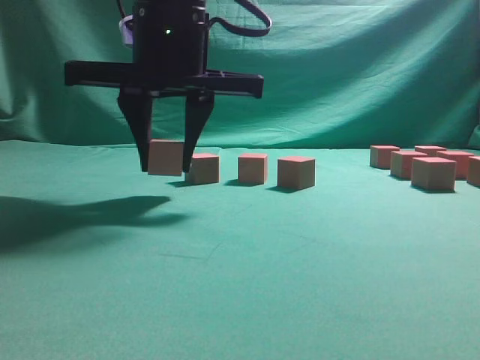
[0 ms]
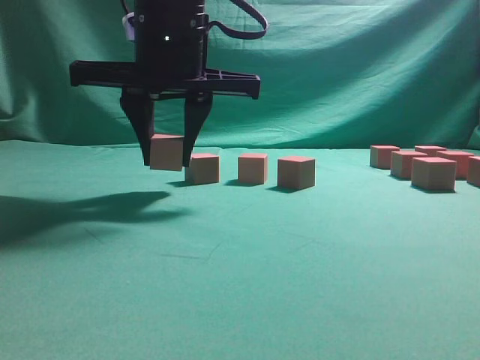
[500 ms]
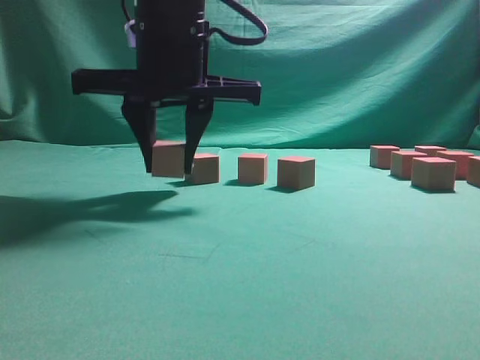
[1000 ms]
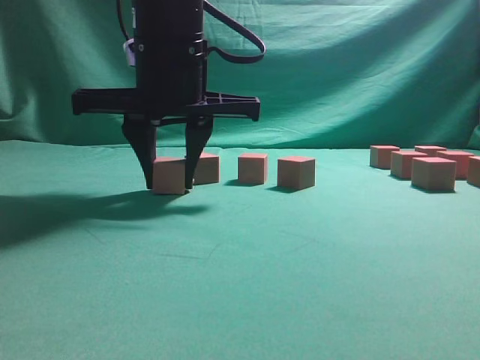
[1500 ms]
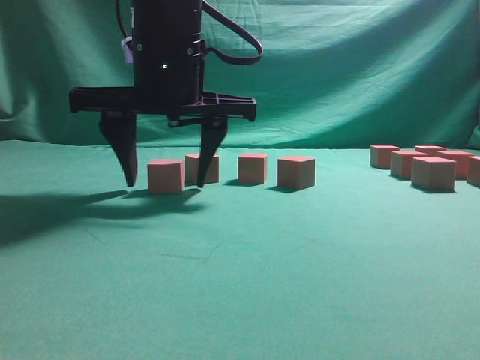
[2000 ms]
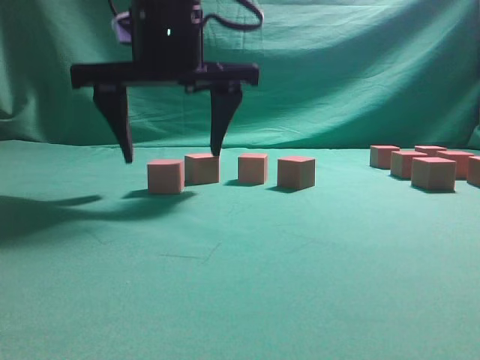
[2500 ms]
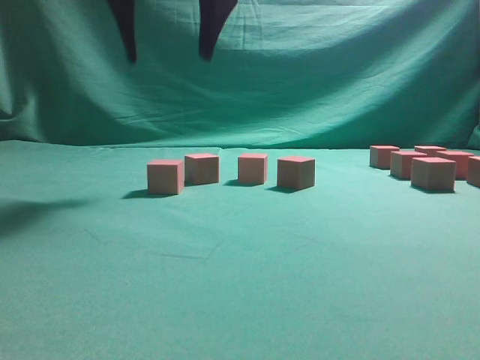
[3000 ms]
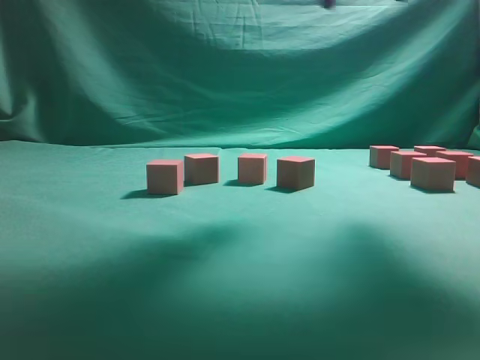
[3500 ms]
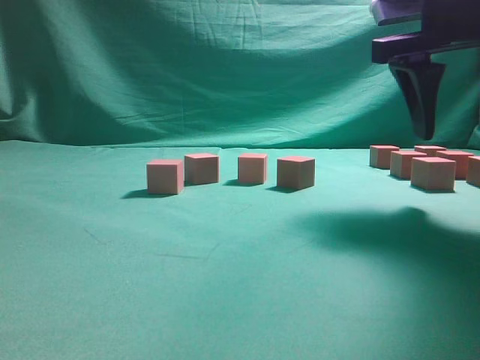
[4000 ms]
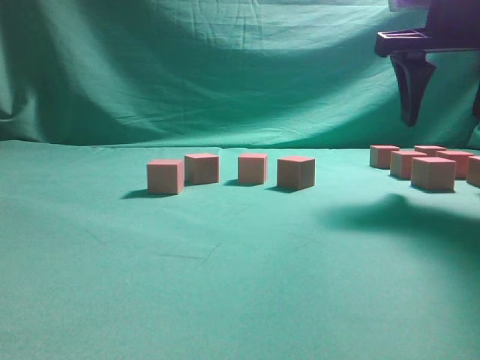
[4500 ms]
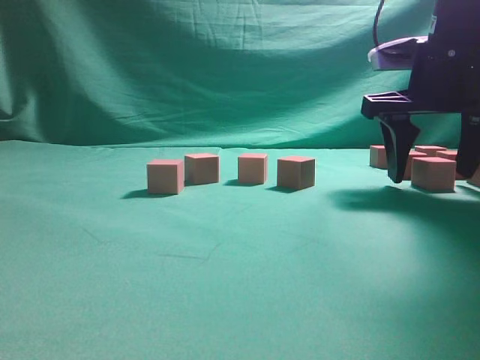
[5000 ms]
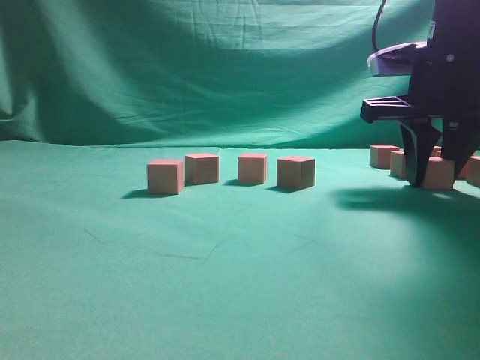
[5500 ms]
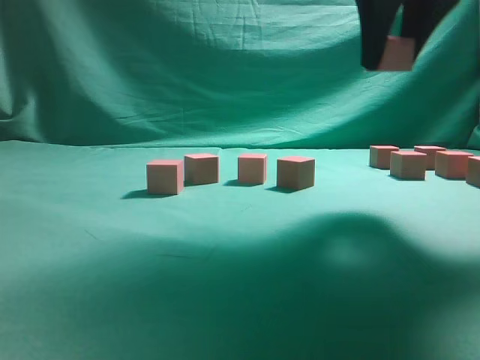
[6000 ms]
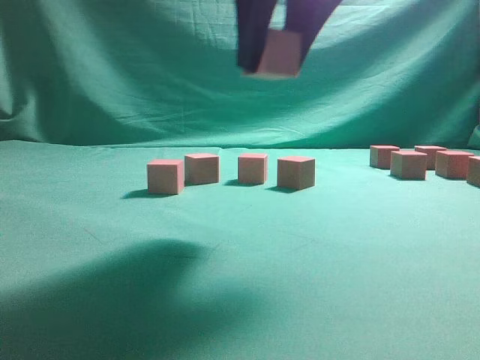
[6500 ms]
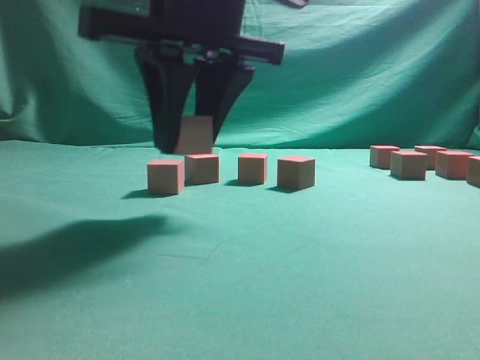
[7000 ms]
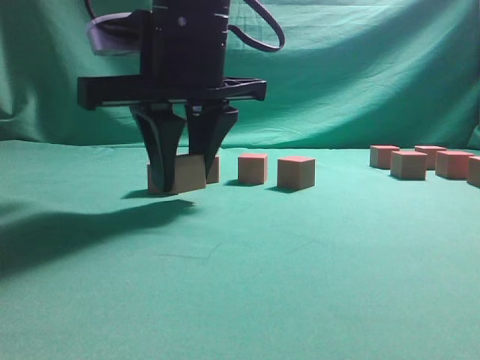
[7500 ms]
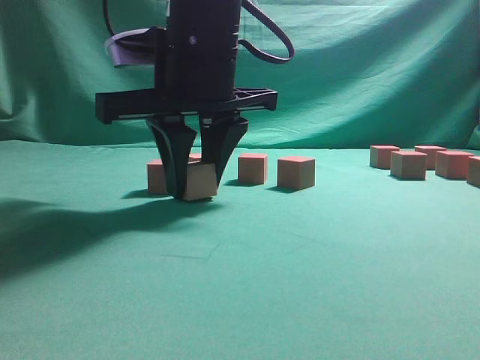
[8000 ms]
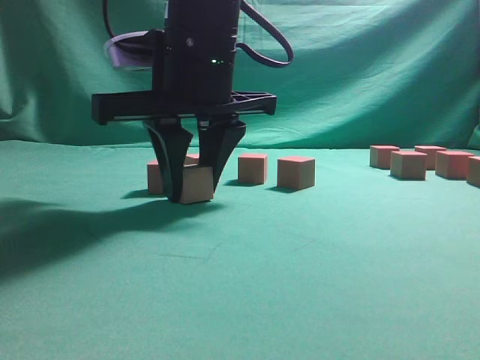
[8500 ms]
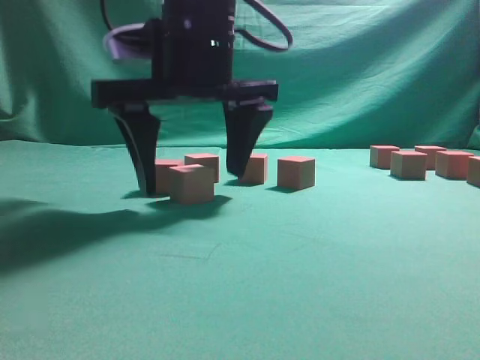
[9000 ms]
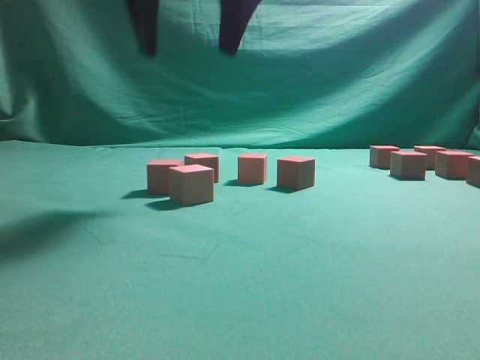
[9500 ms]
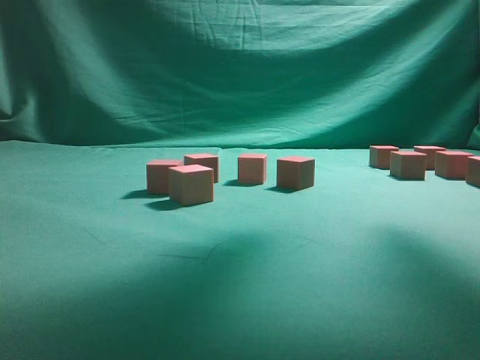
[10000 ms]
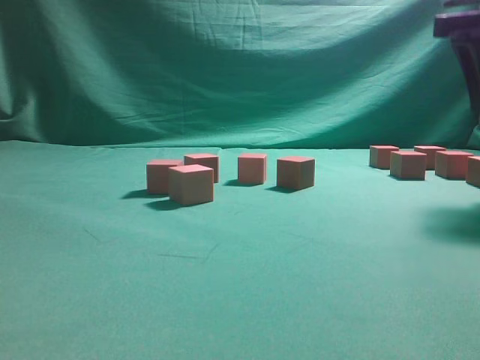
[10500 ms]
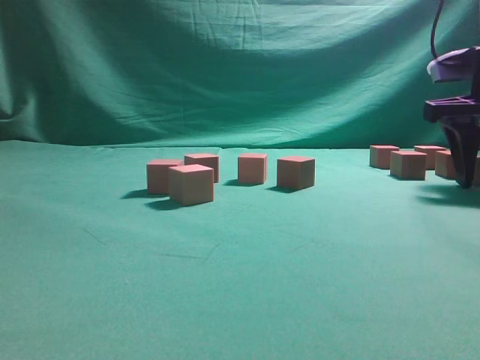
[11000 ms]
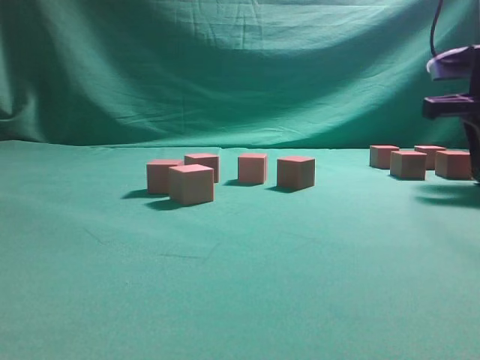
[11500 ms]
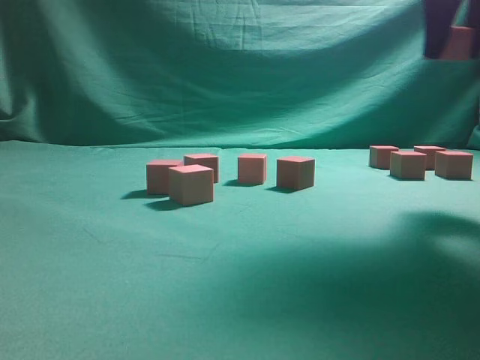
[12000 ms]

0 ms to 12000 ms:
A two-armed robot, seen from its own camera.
Task of the whole recording: pick up the multiple cubes in two columns one by one and place them in another position on the table.
Step, 0 ms to 3000 ms: Place the block at the correct position to assemble the letter S.
Step, 3500 ms to 5500 ms: Pick up the block on the table.
Step, 6000 ms to 9500 ms: Place the block at the correct position to assemble the letter S.
Step, 10000 ms to 11500 ms: Pick up the block on the table.
0 ms to 2000 ms: The grippers move only a little.
2000 ms to 4000 ms: The right gripper moves to the right, roughly 25 cm.
4000 ms to 6000 ms: The right gripper moves upward, roughly 5 cm, and closes its fingers.
6000 ms to 8000 ms: The right gripper is displaced to the left and downward by some 20 cm.
8000 ms to 10000 ms: The right gripper moves upward and to the right, some 25 cm, and opens up.
10000 ms to 12000 ms: The right gripper travels downward and to the right by roughly 10 cm, and closes.

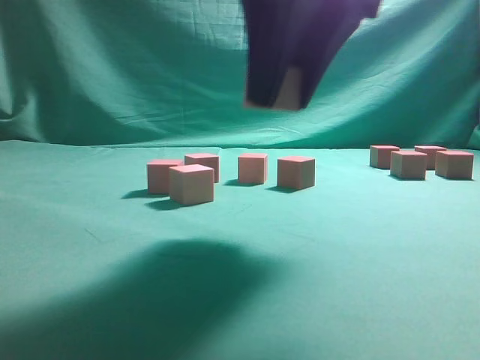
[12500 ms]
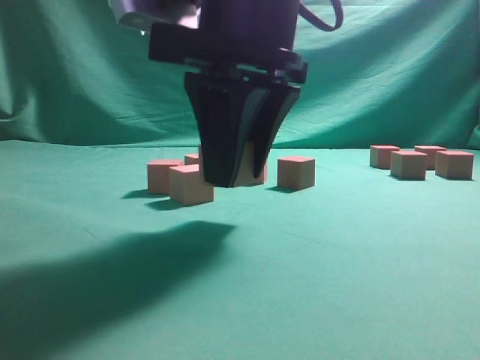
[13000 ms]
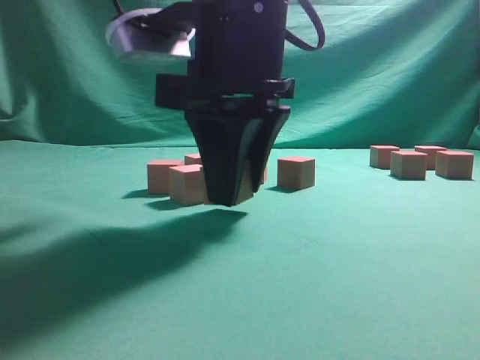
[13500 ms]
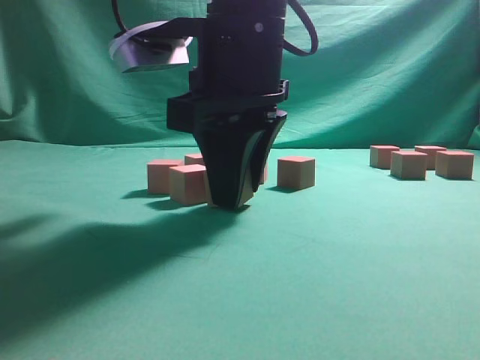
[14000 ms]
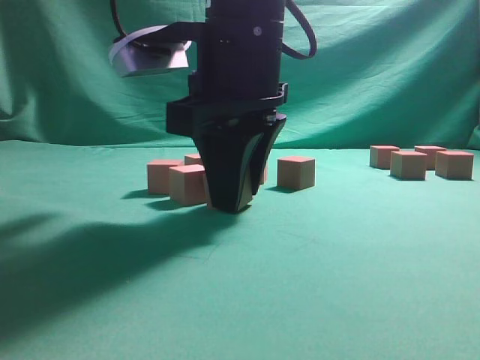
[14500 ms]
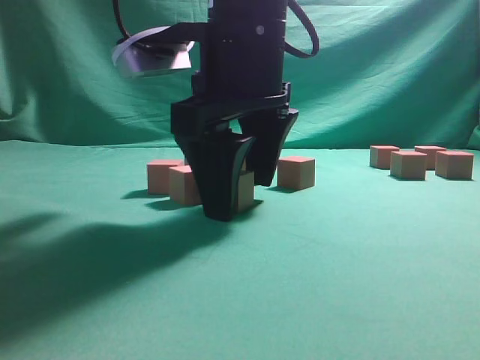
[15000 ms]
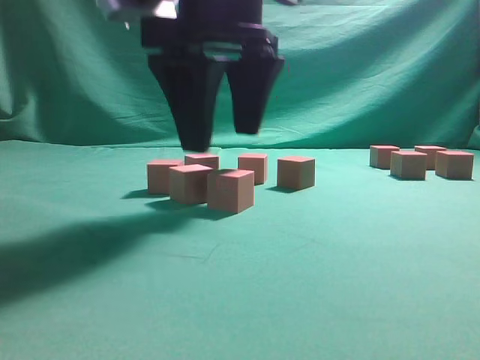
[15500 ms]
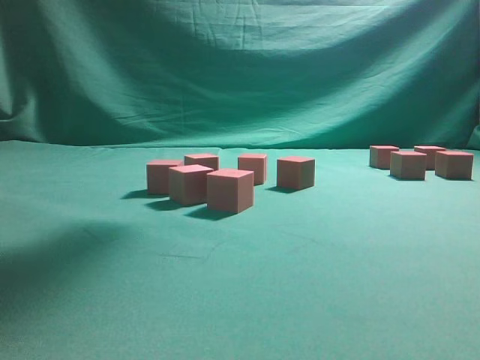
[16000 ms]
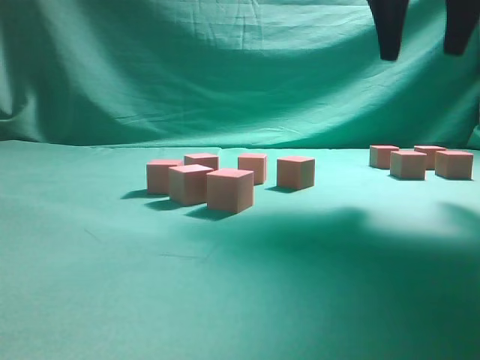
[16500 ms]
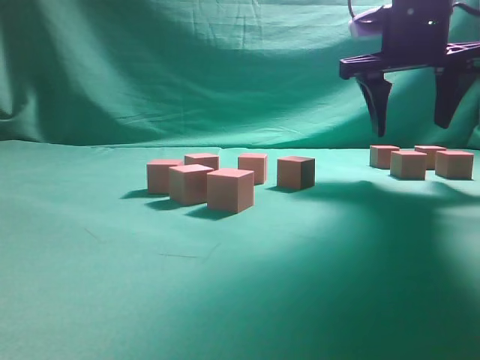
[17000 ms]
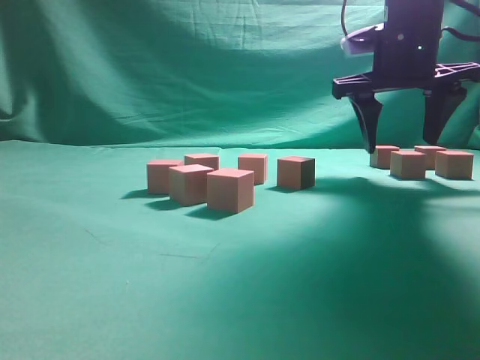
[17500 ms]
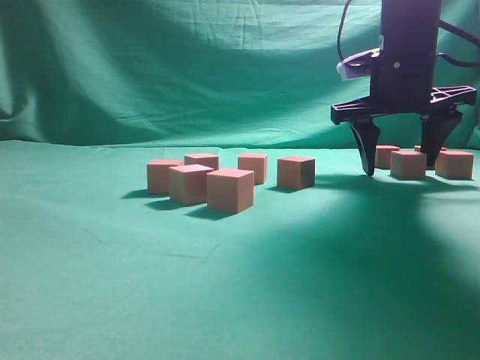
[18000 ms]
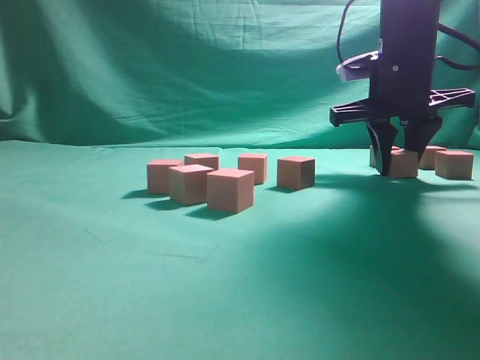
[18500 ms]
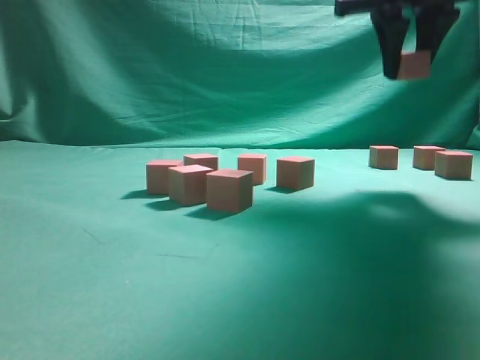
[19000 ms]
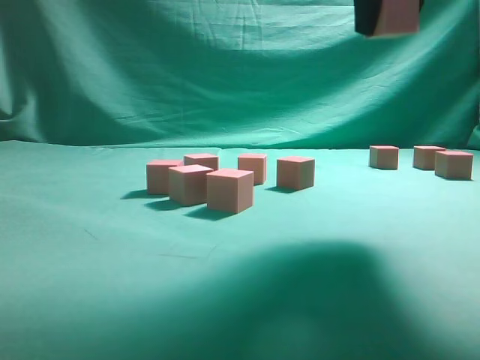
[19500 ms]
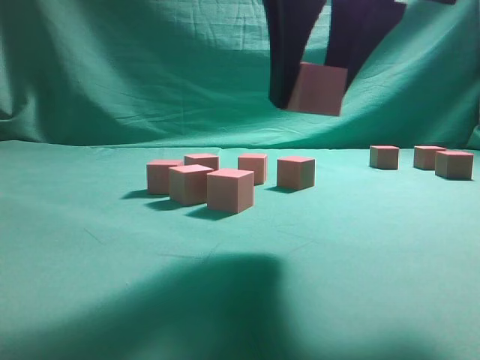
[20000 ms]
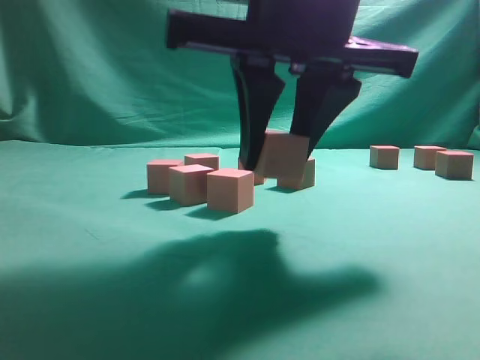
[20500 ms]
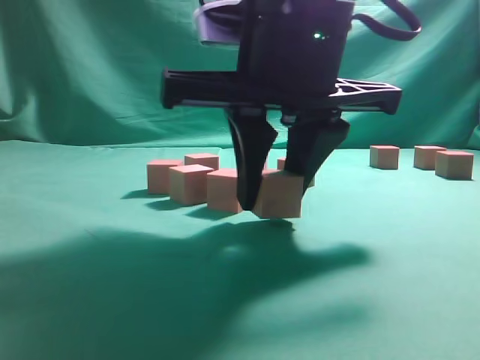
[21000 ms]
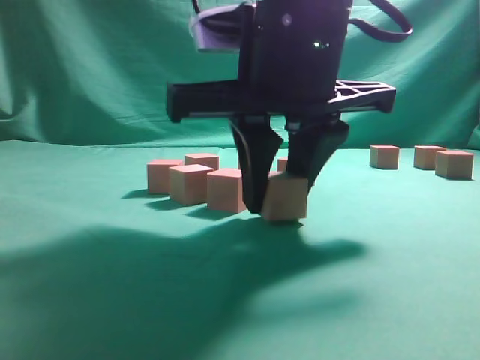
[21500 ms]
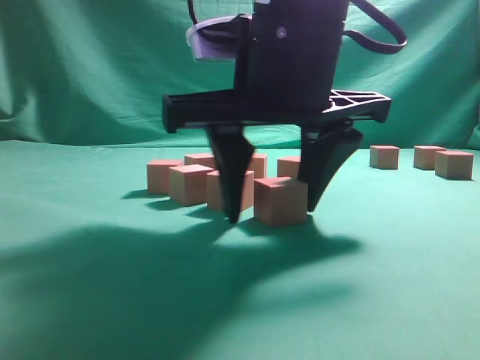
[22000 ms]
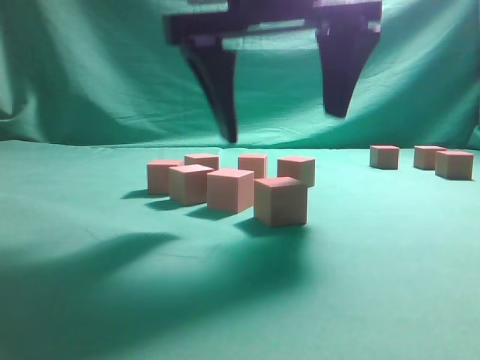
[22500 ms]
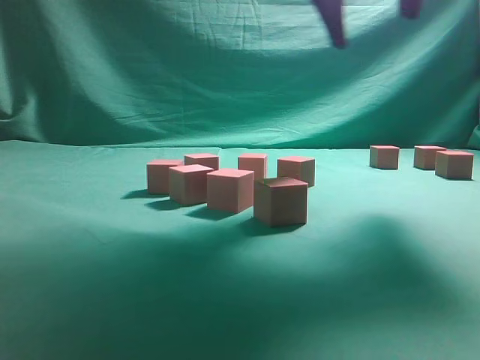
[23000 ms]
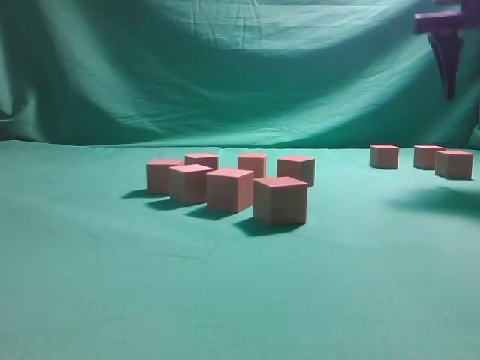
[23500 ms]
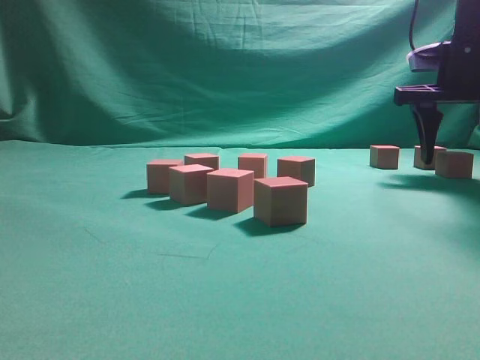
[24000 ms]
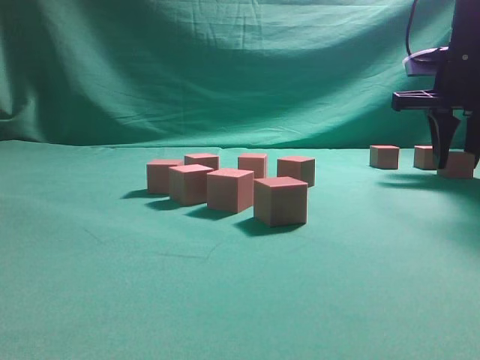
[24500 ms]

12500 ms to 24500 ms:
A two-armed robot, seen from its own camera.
Task of the whole recording: pick up the multiple cubes in two columns one by one and place them in another position on the table.
Step, 12500 ms to 15500 ms: Place the block at the correct position to assemble the letter S.
Step, 16000 ms to 18500 ms: Pick up the block on the table.
Step, 19000 ms to 22500 ms: Place the block at the correct position to assemble the letter S.
12500 ms to 14500 ms: The right gripper moves downward and to the left, some 10 cm.
14500 ms to 16500 ms: The right gripper shifts some 25 cm to the right, upward and forward, and opens.
16500 ms to 18500 ms: The right gripper travels downward and forward by some 15 cm, and closes its fingers.
18500 ms to 20500 ms: The right gripper moves backward and to the left, approximately 25 cm.
20500 ms to 22500 ms: The right gripper opens.
22500 ms to 24500 ms: The right gripper shifts some 30 cm to the right and forward, and closes up.

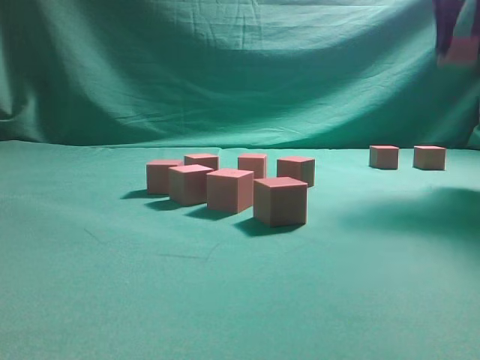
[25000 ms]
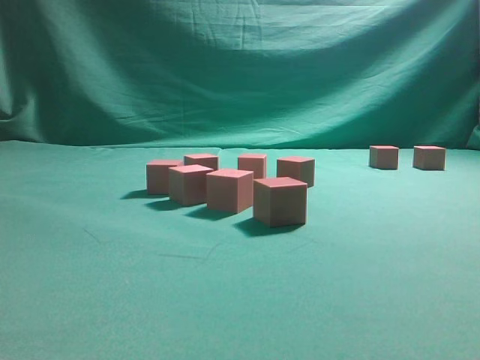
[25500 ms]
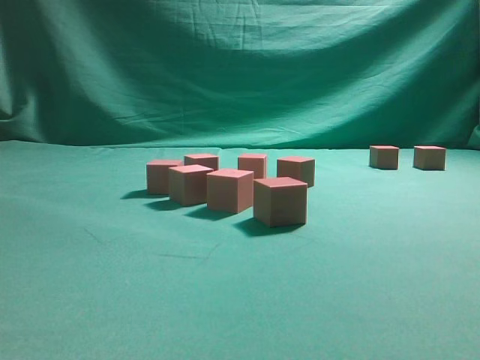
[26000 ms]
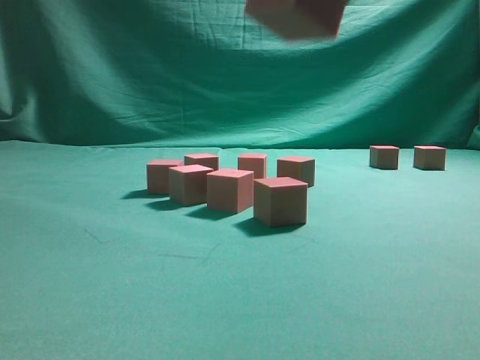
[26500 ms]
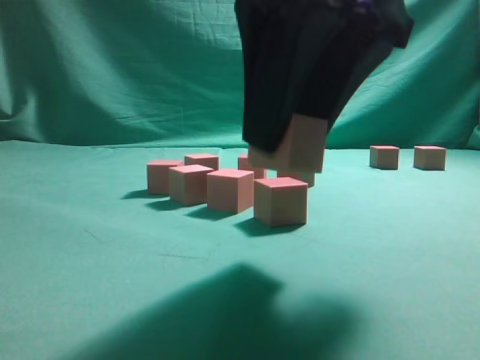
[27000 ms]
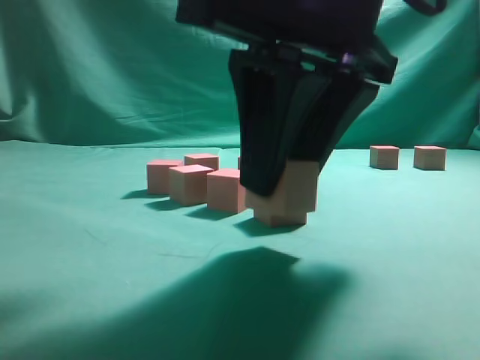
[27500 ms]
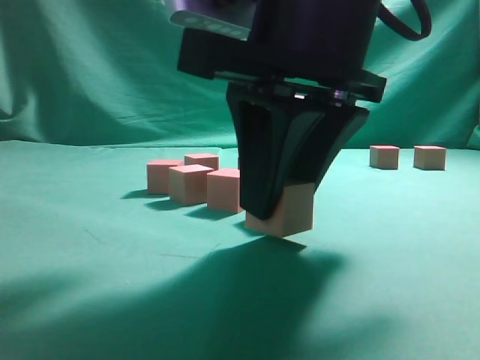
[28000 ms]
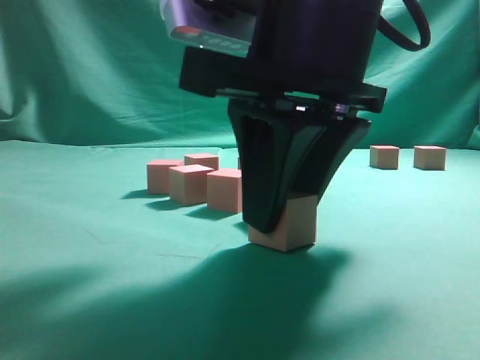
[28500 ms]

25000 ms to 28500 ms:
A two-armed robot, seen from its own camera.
Task of the whole recording: pick up the multiple cubes in two columns one by one and place them in another position on the table.
25000 ms to 27000 ms: The right gripper shifts roughly 30 cm backward and to the left.
27000 ms to 28500 ms: The right gripper ends up roughly 5 cm from where it was.
